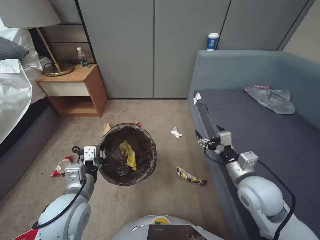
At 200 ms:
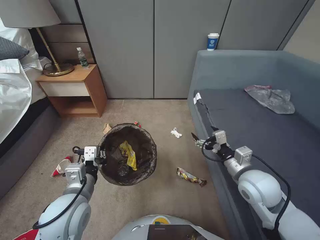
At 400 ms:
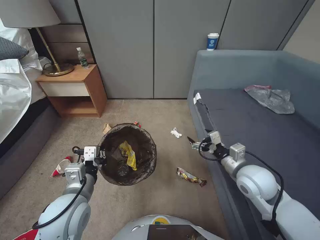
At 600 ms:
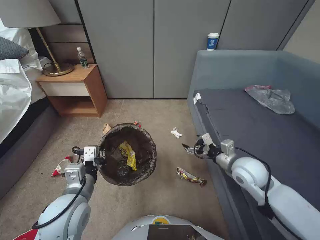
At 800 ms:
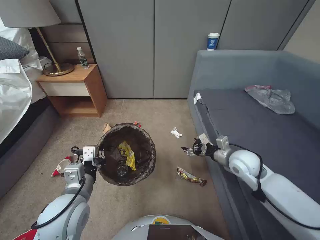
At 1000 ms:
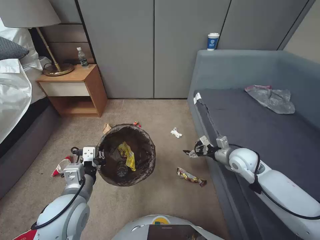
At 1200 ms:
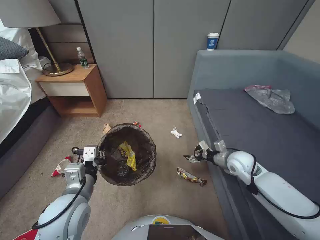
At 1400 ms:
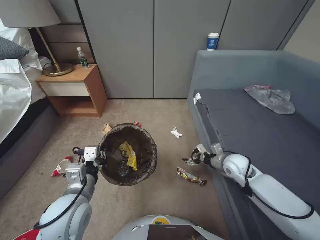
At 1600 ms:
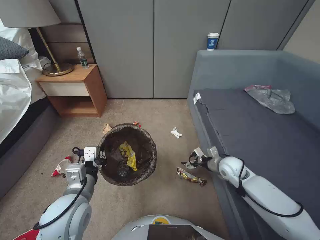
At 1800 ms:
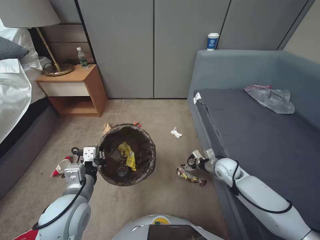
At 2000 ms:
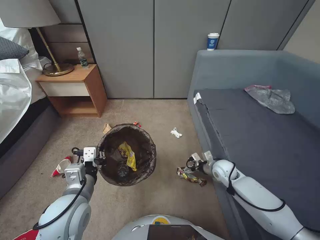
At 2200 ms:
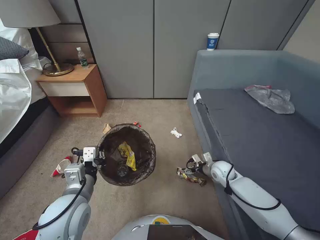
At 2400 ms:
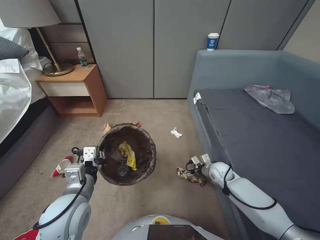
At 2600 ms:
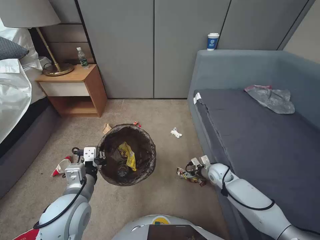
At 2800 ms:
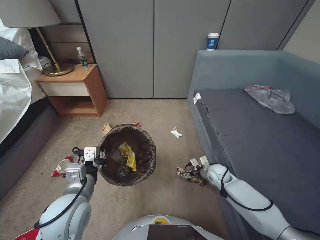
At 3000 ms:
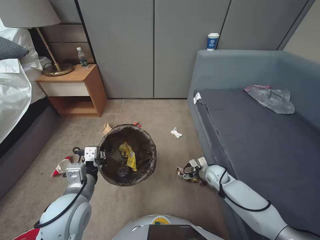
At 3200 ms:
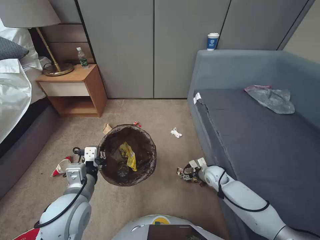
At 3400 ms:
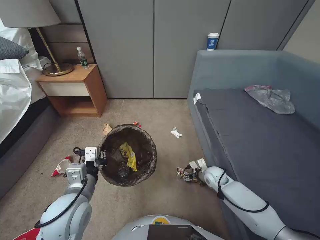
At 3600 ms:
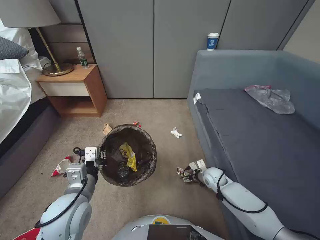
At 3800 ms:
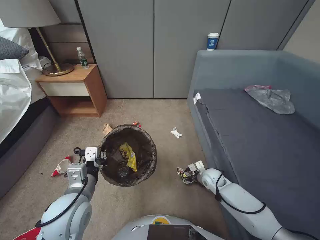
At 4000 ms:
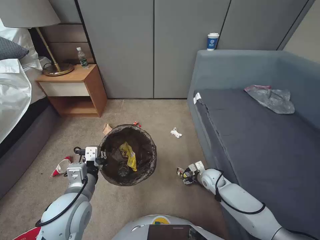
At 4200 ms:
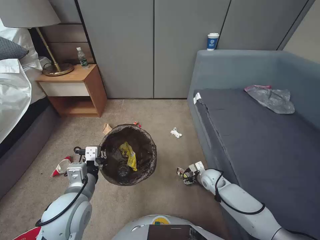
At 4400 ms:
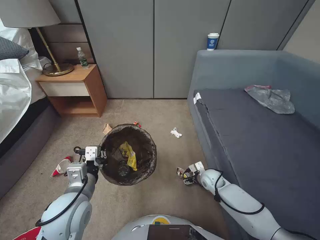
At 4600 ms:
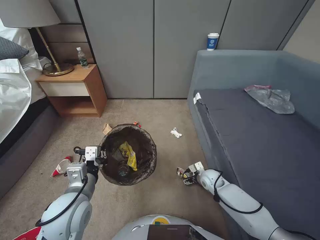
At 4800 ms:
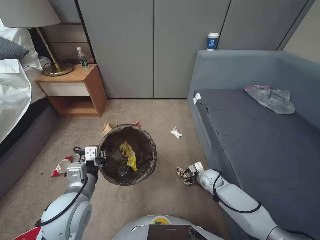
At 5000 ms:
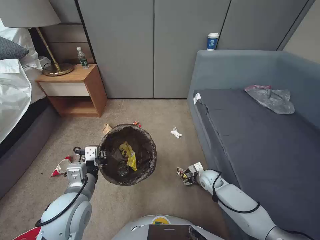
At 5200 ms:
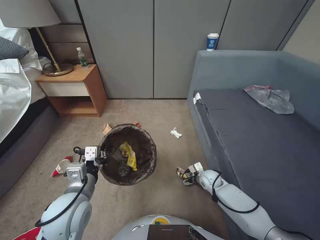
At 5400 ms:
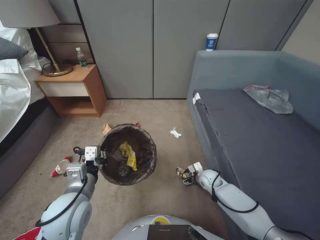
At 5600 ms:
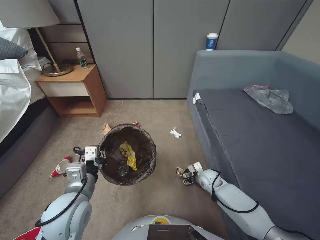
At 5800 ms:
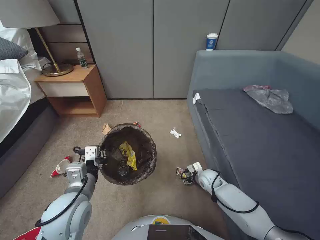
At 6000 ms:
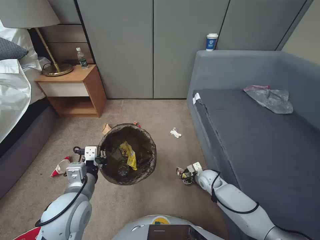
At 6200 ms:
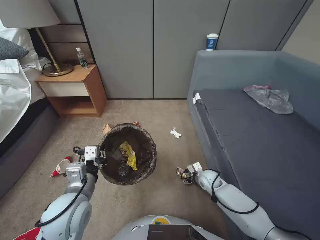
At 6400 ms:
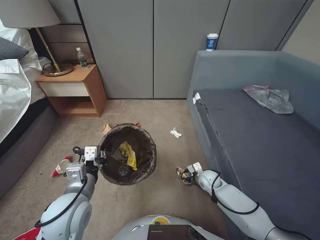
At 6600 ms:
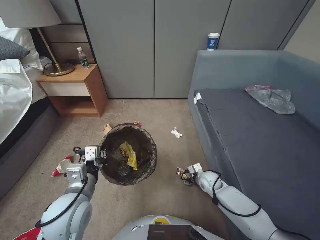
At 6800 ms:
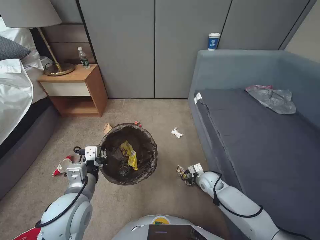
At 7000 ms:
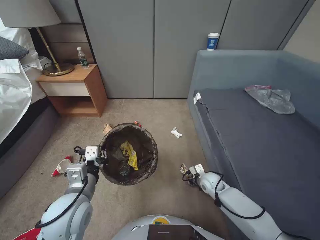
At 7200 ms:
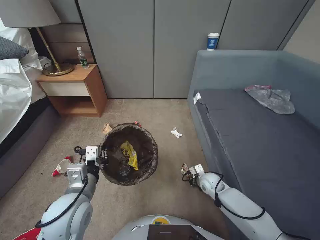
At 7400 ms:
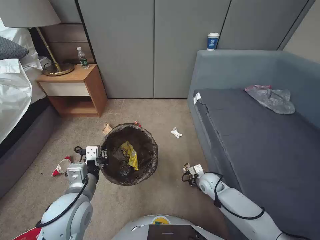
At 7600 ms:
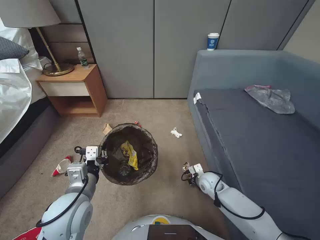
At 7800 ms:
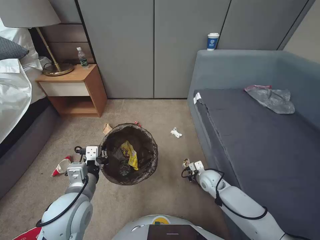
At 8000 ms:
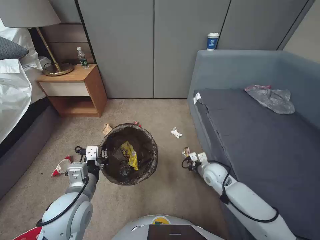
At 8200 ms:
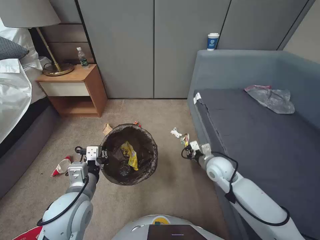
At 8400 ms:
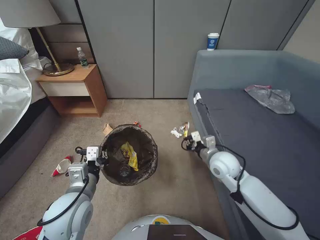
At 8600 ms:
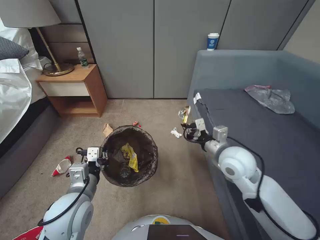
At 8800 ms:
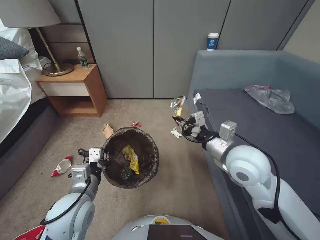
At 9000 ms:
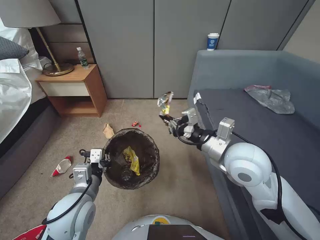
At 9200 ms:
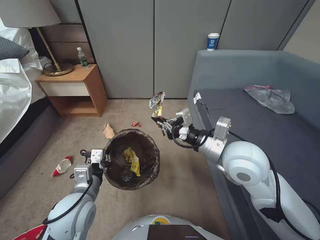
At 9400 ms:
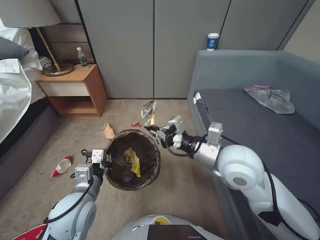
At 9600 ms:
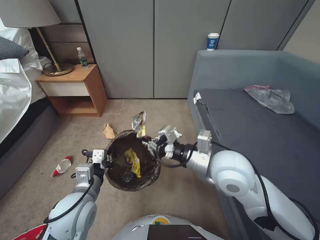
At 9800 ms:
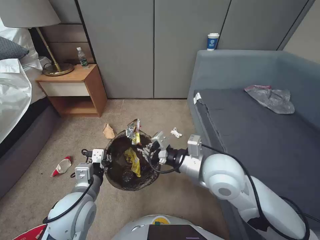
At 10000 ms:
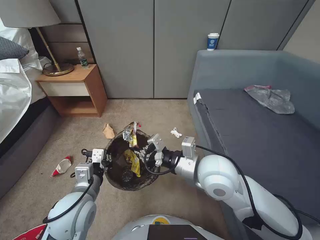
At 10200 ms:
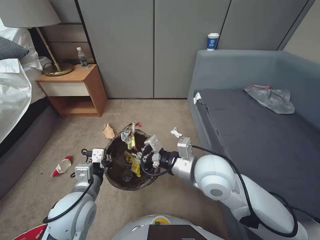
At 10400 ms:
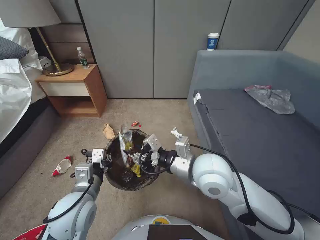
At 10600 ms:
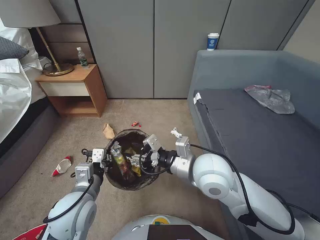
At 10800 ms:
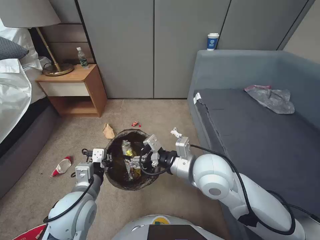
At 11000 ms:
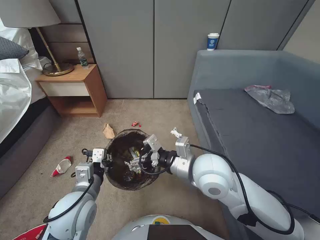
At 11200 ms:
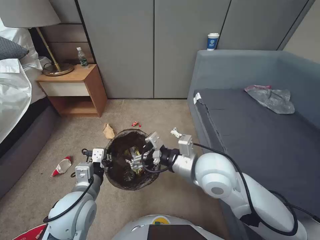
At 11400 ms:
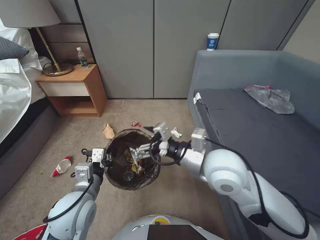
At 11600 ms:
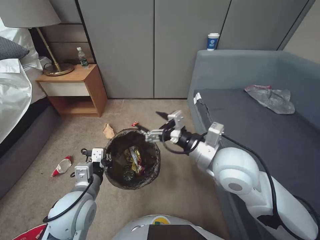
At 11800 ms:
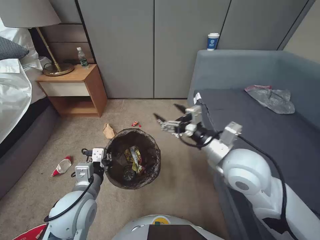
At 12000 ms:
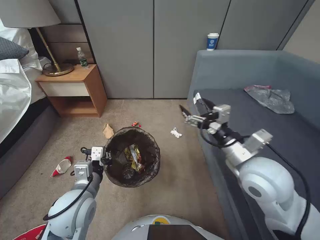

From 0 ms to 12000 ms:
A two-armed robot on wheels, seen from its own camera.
Task of the whole recording: Pick up the trash bin, then pick up the garbage from the floor and place it into the trash bin.
From 0 ms to 1600 ms: The right gripper is displaced forward and downward by about 15 cm.
From 1600 ms to 3000 ms: The right gripper is displaced downward by some 10 cm.
From 3000 ms to 6000 ms: There are only small adjustments of the grippers.
From 6000 ms to 7600 ms: The right gripper closes.
From 7600 ms to 9000 ms: The right gripper moves upward, approximately 35 cm.
From 9000 ms to 10400 ms: The right gripper shifts approximately 10 cm to the left.
From 10400 ms to 12000 ms: The right gripper travels to the right by about 10 cm, and opens its fingers.

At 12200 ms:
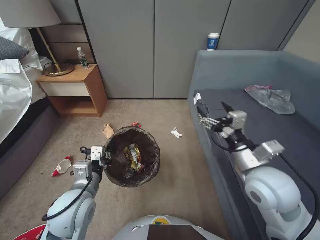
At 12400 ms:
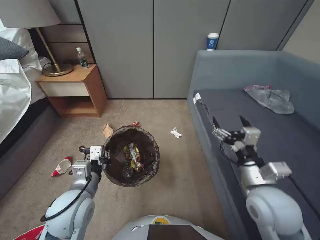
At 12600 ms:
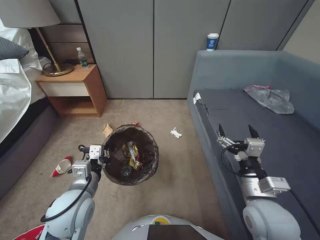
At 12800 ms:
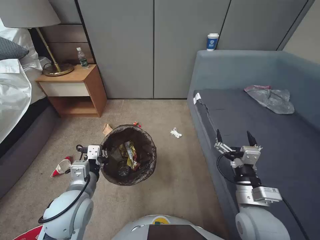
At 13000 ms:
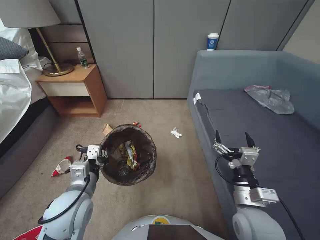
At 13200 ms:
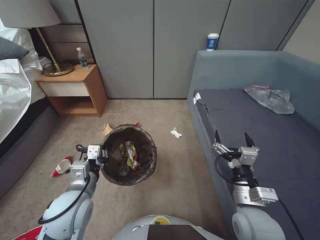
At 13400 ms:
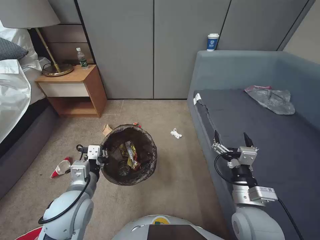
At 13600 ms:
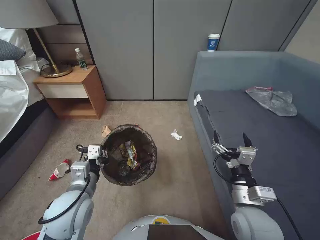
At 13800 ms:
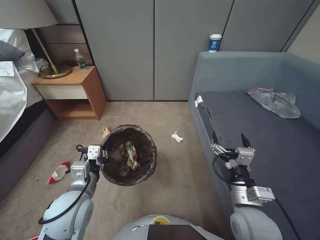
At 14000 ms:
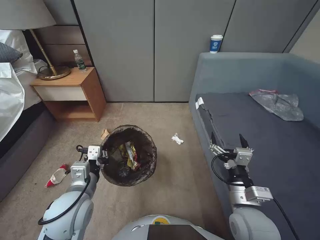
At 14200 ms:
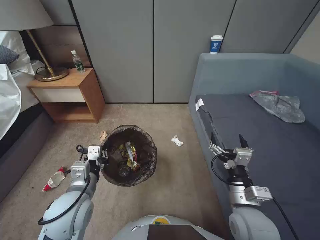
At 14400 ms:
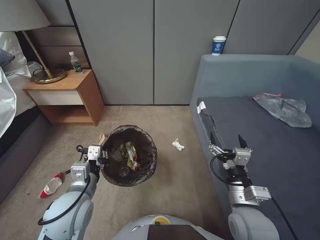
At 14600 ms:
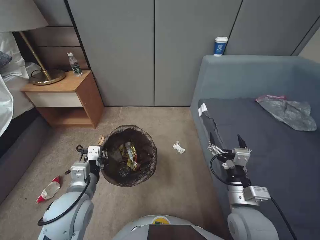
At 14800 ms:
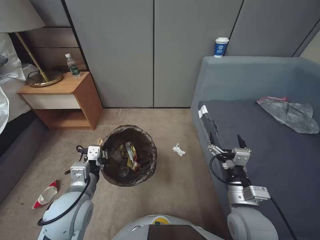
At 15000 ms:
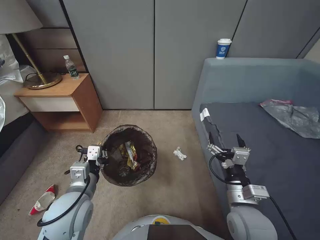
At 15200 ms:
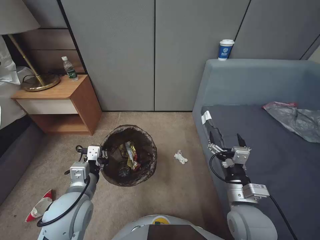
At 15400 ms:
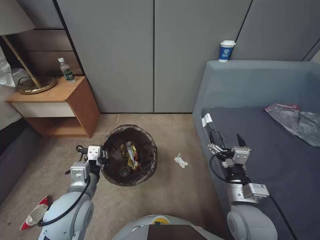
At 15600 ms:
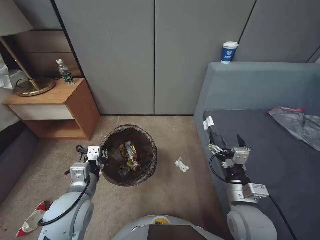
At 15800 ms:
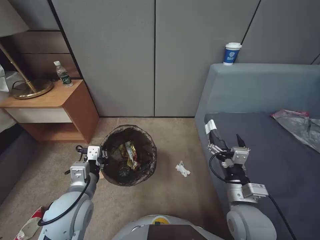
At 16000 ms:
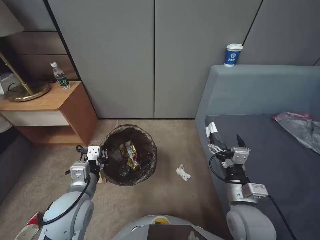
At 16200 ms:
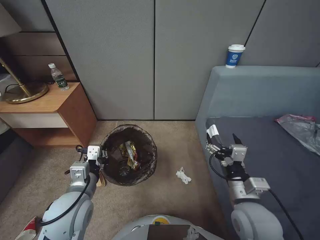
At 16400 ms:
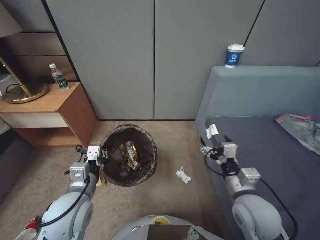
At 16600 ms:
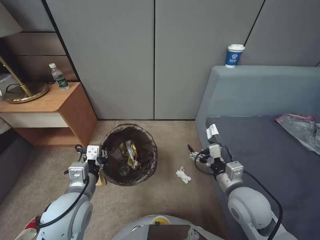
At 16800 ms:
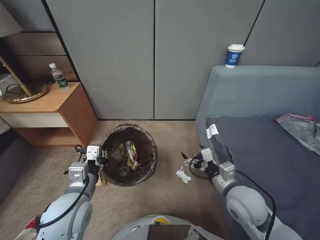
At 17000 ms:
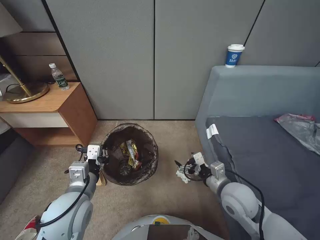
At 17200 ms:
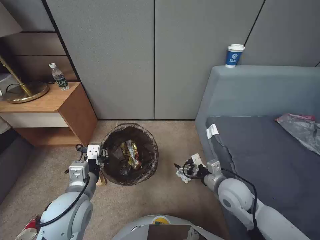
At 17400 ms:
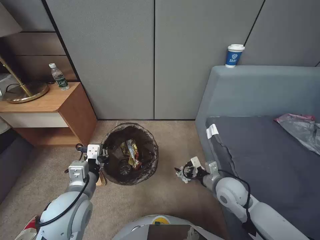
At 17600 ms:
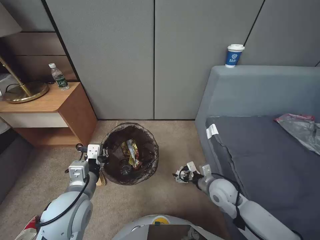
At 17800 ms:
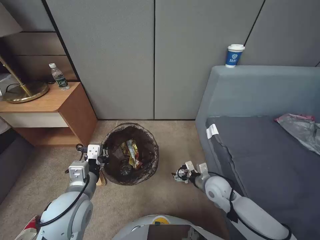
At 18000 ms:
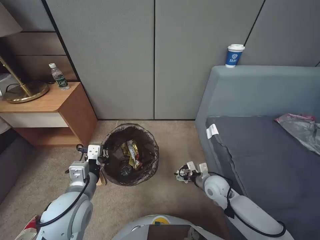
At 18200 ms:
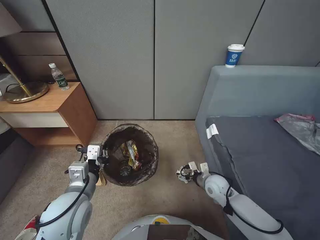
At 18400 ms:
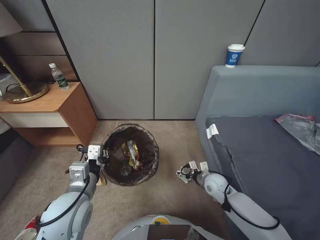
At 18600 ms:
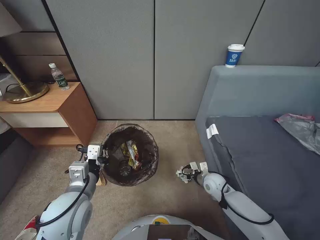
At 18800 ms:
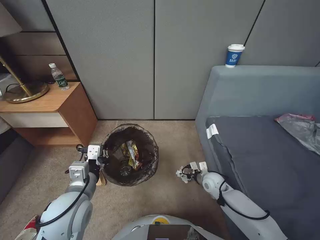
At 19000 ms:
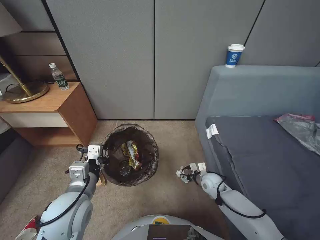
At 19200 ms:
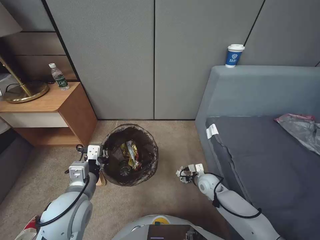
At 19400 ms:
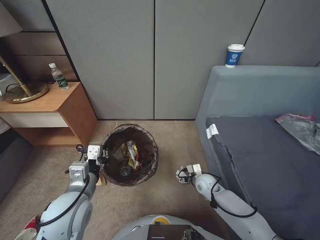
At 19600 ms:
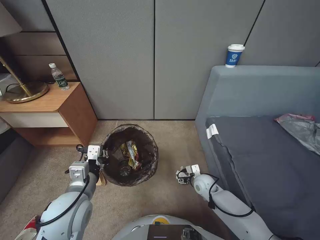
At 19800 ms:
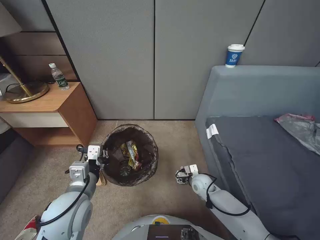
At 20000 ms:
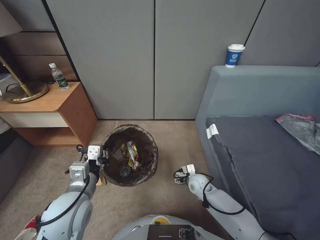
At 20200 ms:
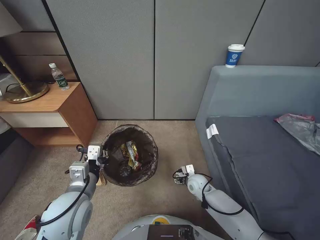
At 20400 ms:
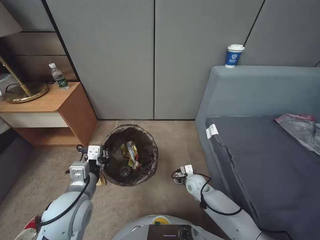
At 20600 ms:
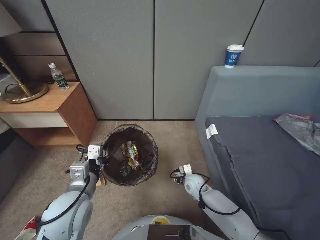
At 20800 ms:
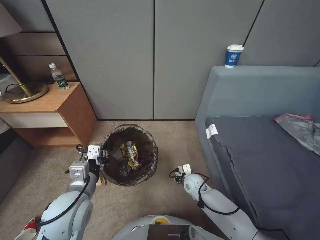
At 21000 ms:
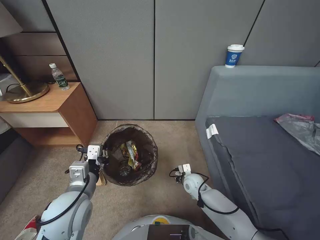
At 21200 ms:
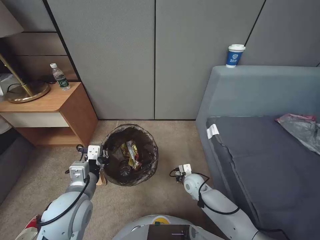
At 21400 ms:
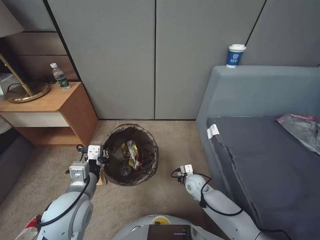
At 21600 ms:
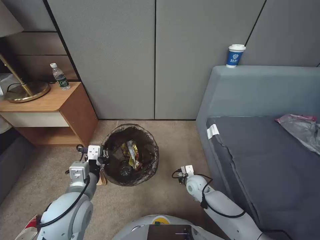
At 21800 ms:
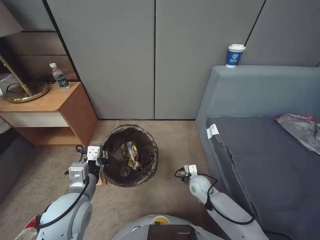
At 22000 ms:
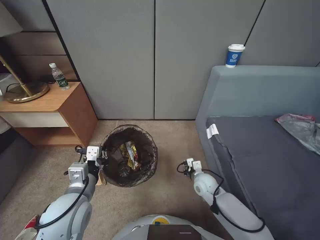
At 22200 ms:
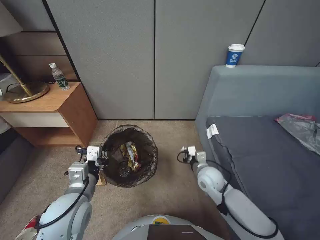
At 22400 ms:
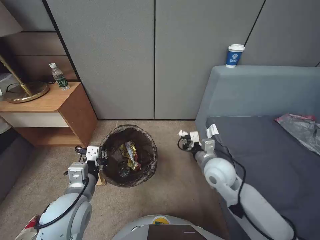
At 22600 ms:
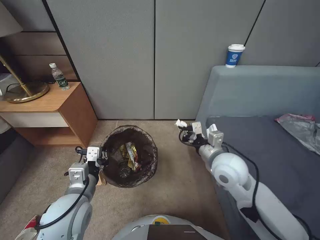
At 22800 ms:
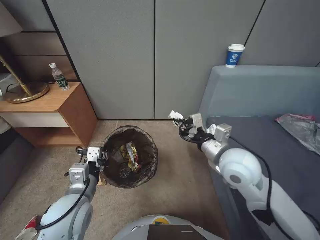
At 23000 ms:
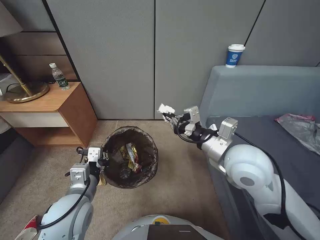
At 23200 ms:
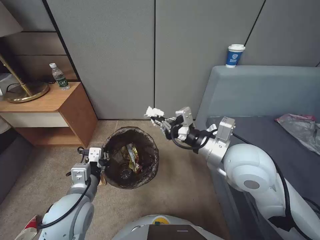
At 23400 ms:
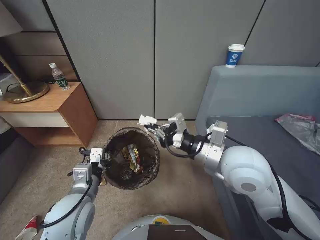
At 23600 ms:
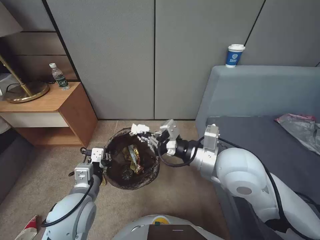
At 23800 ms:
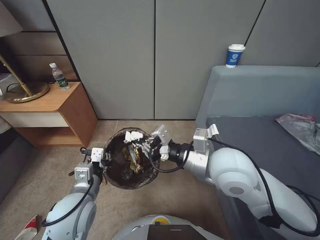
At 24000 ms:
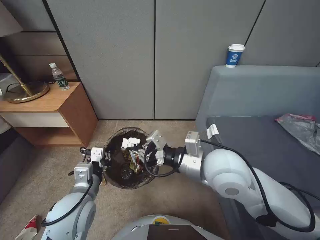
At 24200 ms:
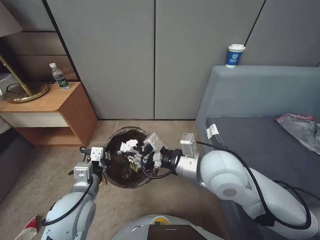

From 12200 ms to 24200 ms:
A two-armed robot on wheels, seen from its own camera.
Task of the whole recording: Pick up the trash bin, then pick up the garbage from the floor and place it into the trash bin.
From 12200 ms to 13800 ms: The right gripper heads downward and backward, covering roughly 15 cm.
From 16600 ms to 18200 ms: The right gripper travels downward and forward by some 20 cm.
From 18200 ms to 19800 ms: The right gripper is displaced downward by about 5 cm.
From 19800 ms to 21200 ms: The right gripper closes.
From 21200 ms to 22600 ms: The right gripper goes about 25 cm upward.
From 22600 ms to 24200 ms: The right gripper heads upward and to the left, covering some 10 cm.
